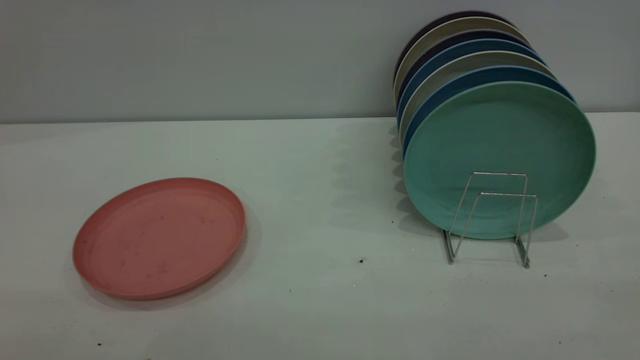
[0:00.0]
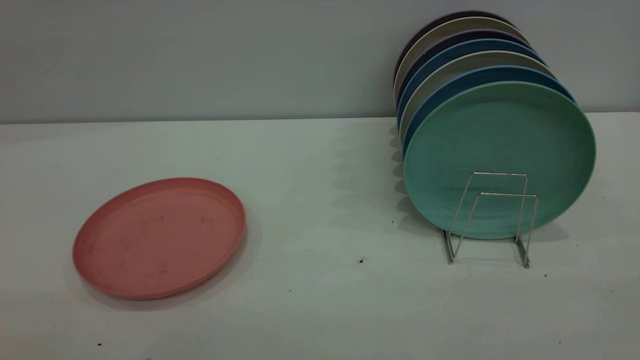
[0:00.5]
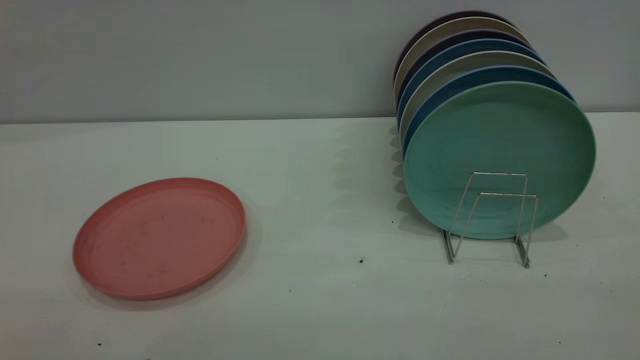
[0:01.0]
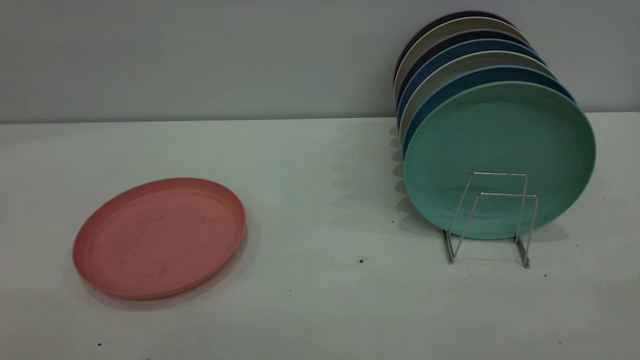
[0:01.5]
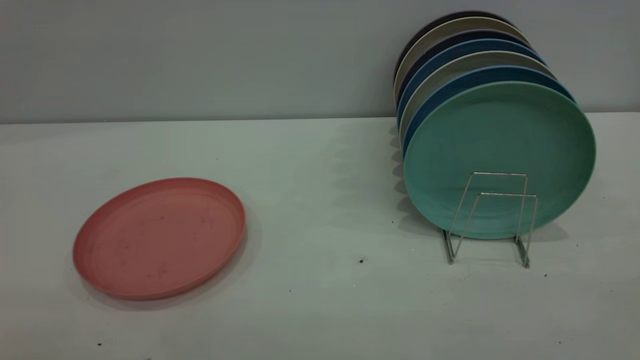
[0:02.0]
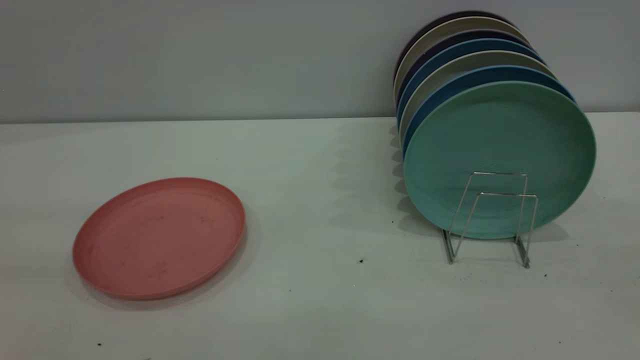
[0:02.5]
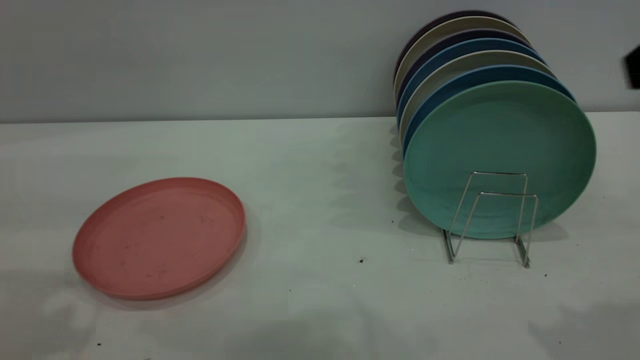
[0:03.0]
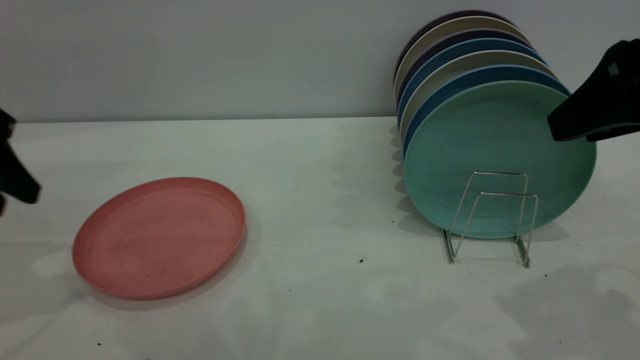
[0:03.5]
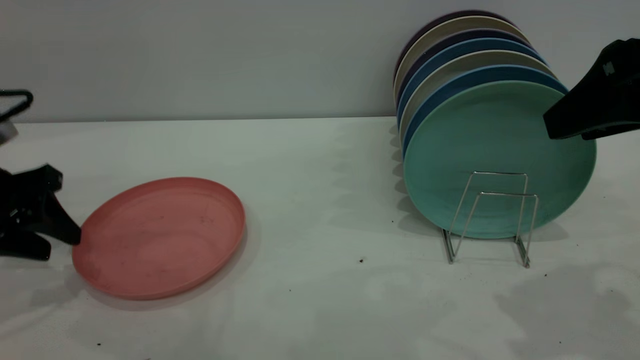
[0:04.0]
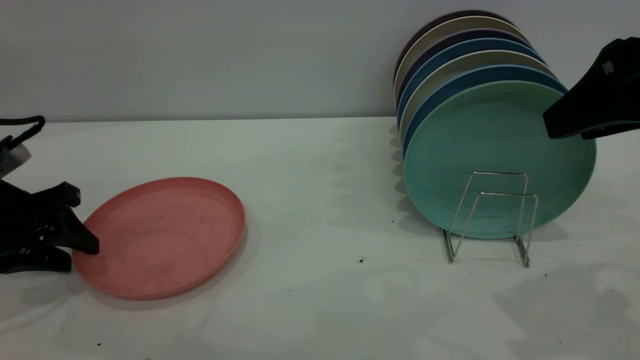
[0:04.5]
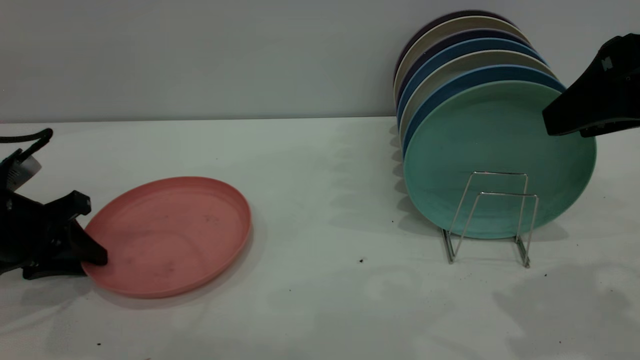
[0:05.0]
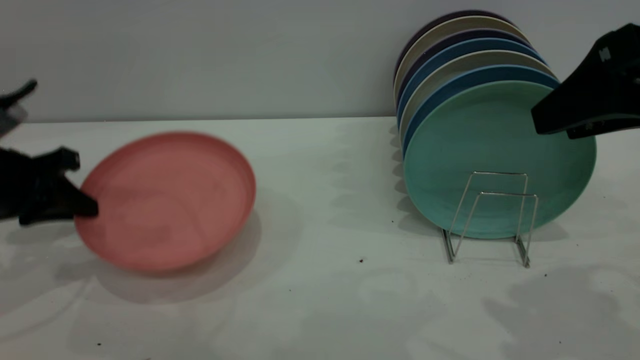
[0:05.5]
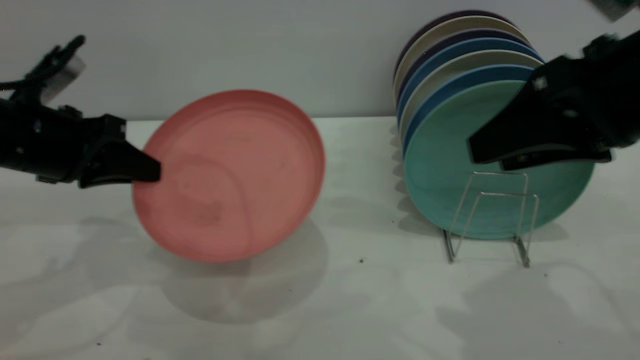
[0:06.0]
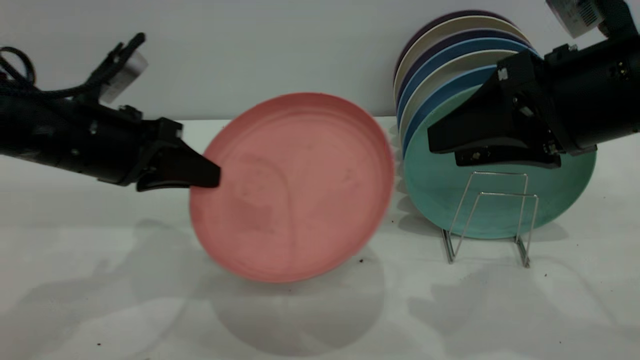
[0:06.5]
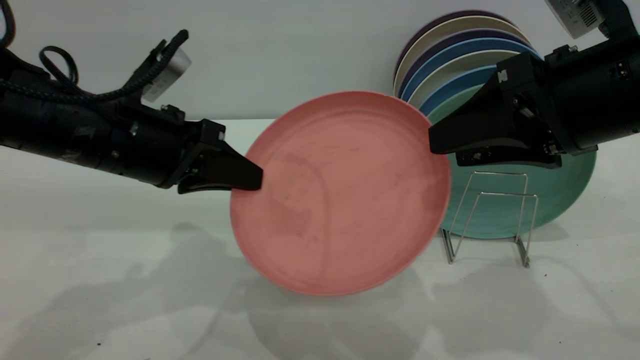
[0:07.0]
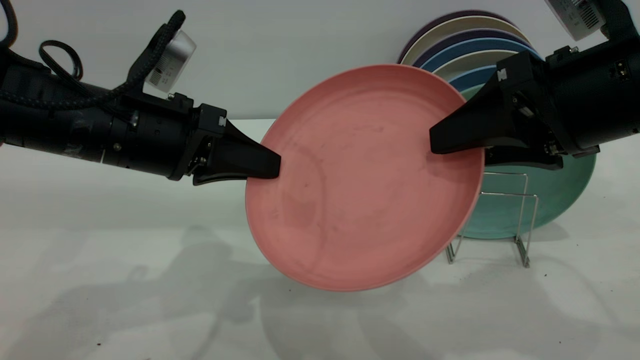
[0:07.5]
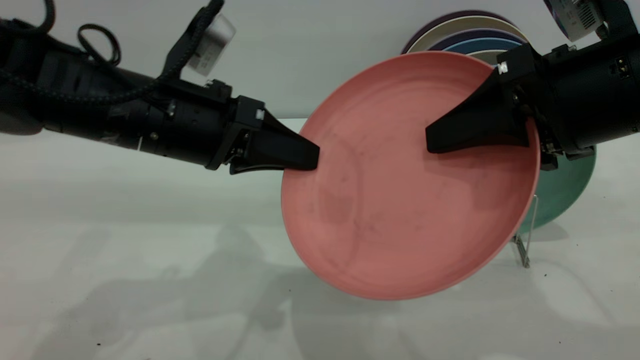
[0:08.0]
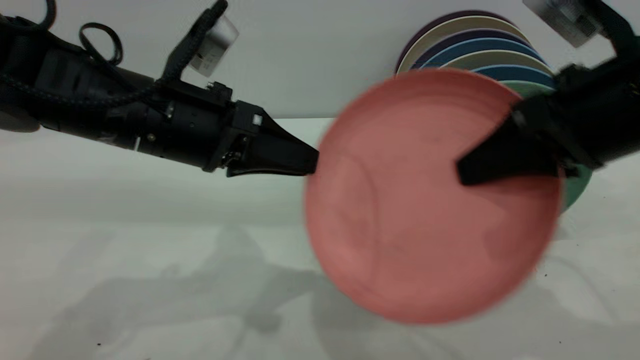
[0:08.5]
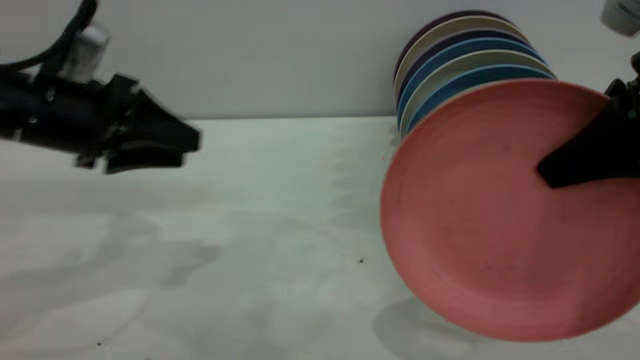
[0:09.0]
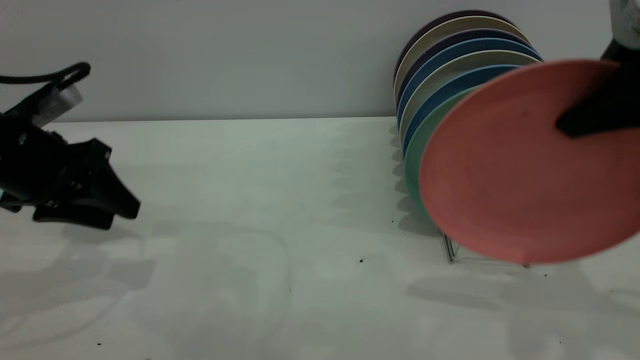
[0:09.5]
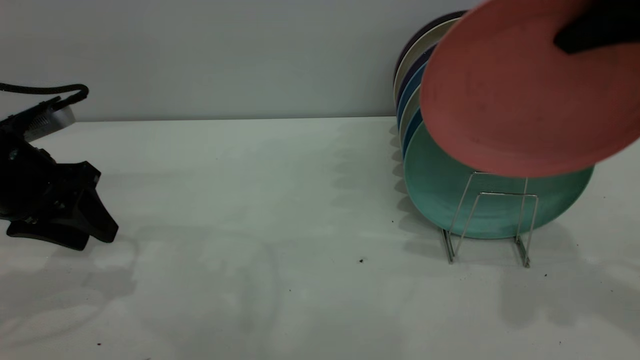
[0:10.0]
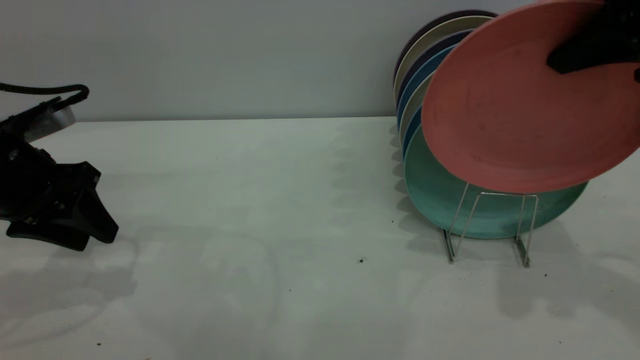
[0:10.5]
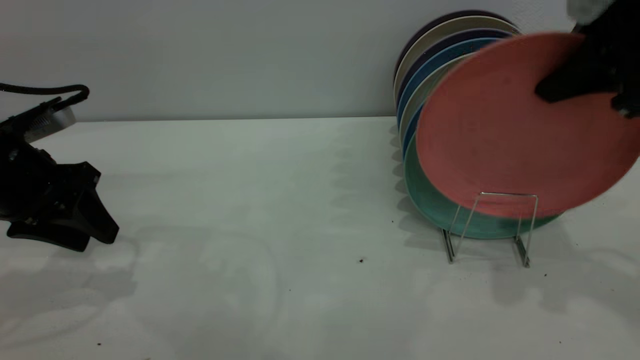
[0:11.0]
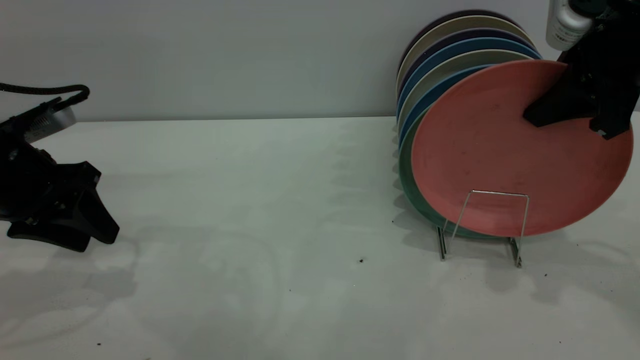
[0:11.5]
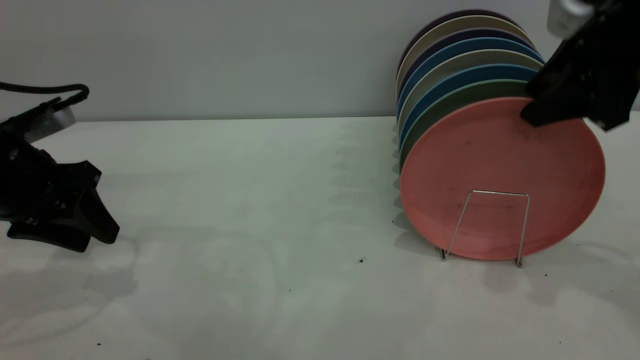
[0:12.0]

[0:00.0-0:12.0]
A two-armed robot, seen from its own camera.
Task of the whole recording: put the plate on the plate rack.
Step, 0:00.0 to 0:05.0: Pick up the plate with the left gripper.
Step, 0:05.5 to 0:08.0: Pass the plate from the left gripper to the right gripper.
Step, 0:08.5 to 0:12.0: Place the plate on the shelf.
0:00.0 to 0:02.0: Both grippers stay put.
0:02.0 to 0:04.0: The right gripper heads forward, covering approximately 25 cm; the left gripper heads forward and downward, covering some 40 cm.
0:04.0 to 0:06.0: The left gripper travels to the right by roughly 5 cm, and closes up. The right gripper shifts by roughly 5 cm.
0:06.0 to 0:08.0: The left gripper is displaced to the right by approximately 15 cm.
0:08.0 to 0:10.0: The right gripper is displaced upward and to the right by about 10 cm, and closes its fingers. Meanwhile the left gripper moves to the left, about 15 cm, and opens.
0:10.0 to 0:12.0: The right gripper heads downward, covering approximately 5 cm, and opens its fingers.

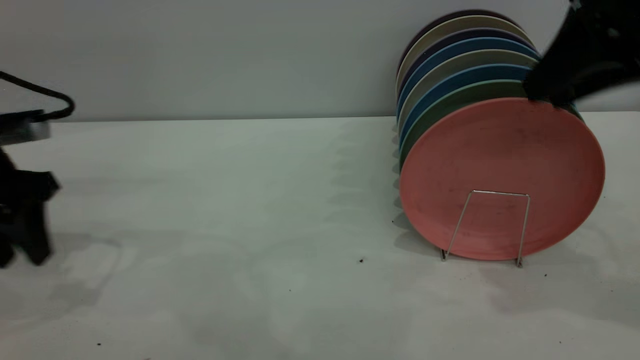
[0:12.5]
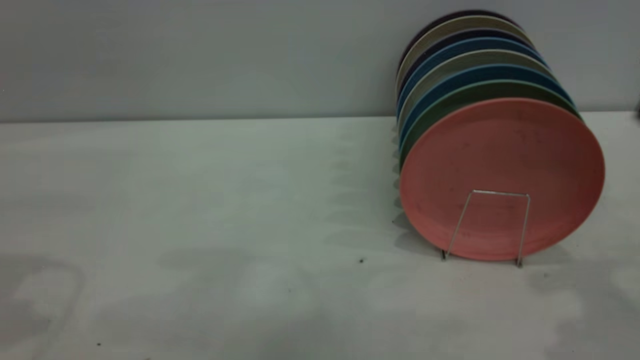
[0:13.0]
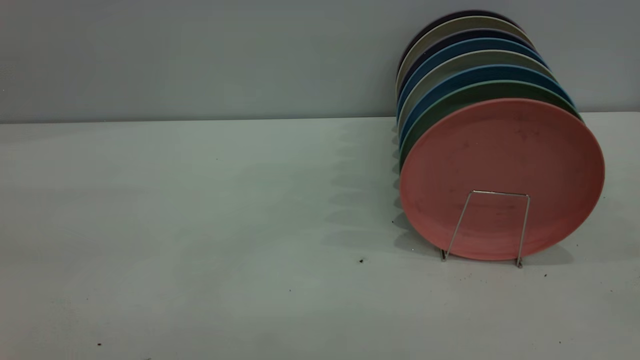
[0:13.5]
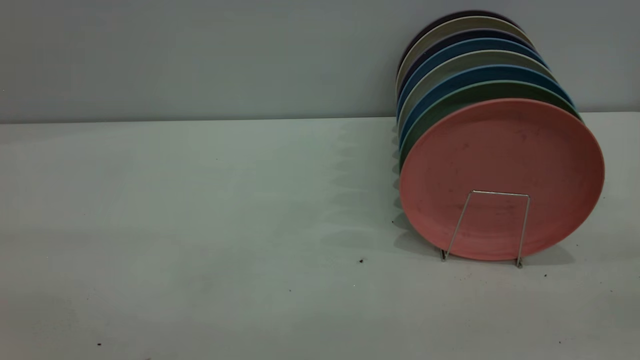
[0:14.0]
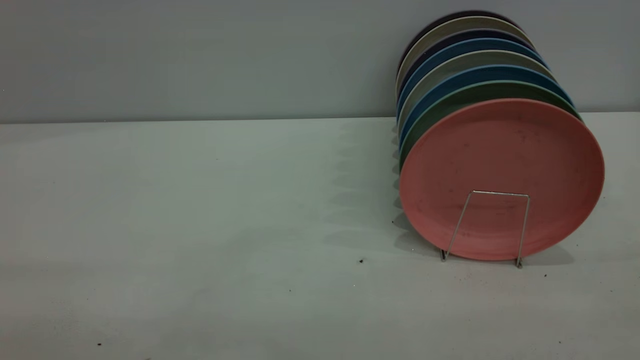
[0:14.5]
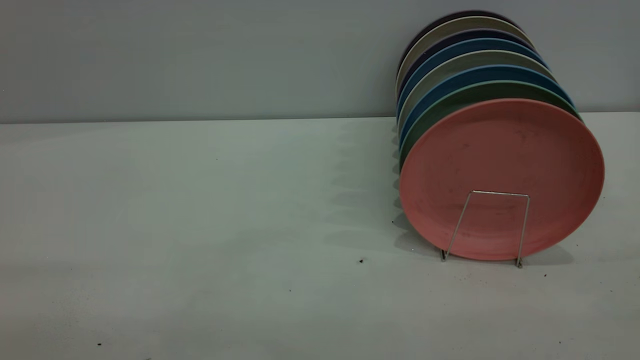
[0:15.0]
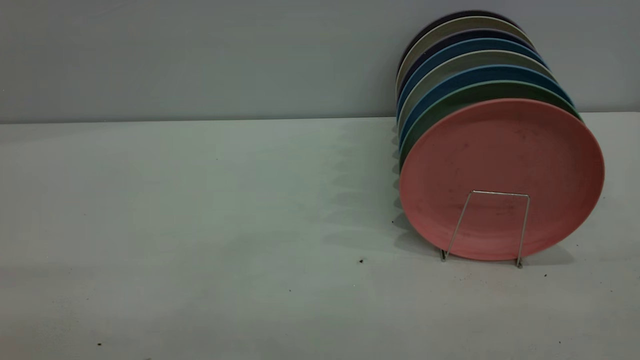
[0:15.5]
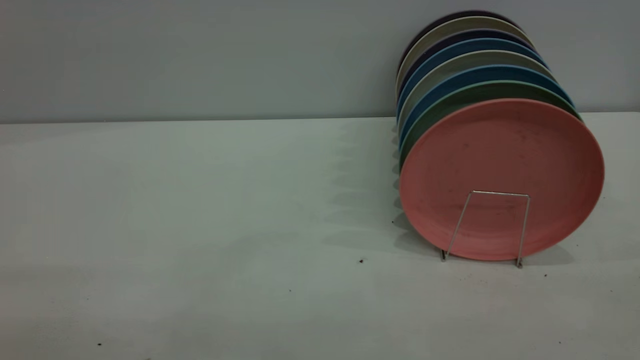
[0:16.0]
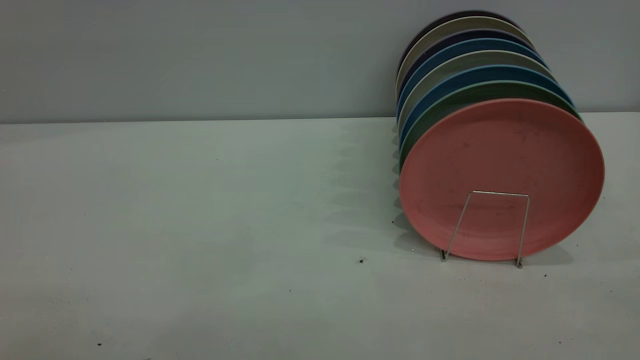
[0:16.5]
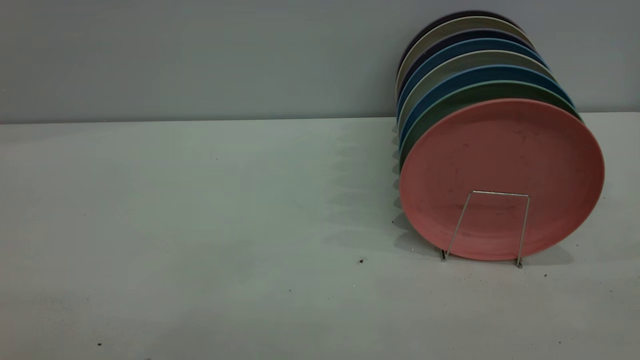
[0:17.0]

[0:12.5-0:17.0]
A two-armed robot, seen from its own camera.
Task of the whole recording: put the plate on the plate rack.
0:12.5 to 0:14.5: The left gripper is displaced backward and upward by about 35 cm, while the right gripper shifts roughly 30 cm backward.
